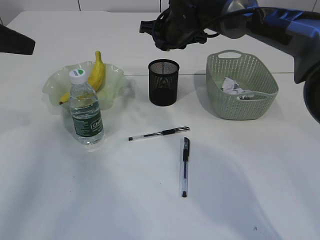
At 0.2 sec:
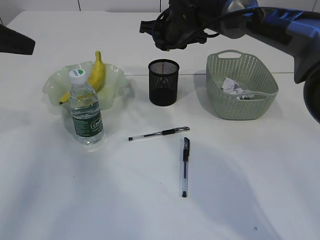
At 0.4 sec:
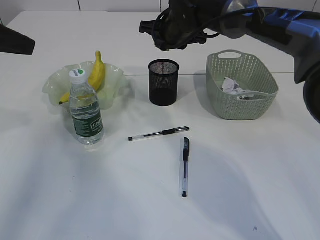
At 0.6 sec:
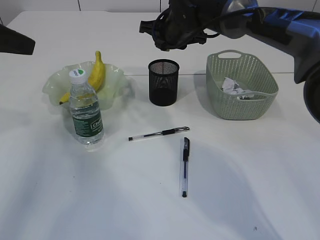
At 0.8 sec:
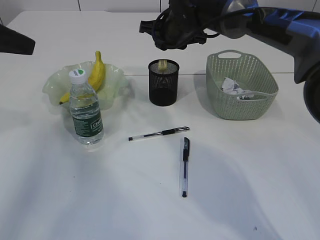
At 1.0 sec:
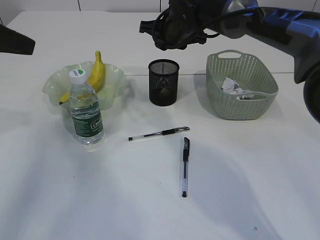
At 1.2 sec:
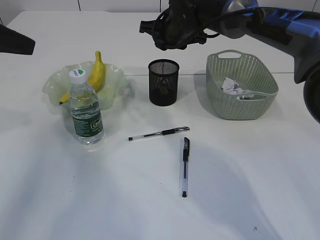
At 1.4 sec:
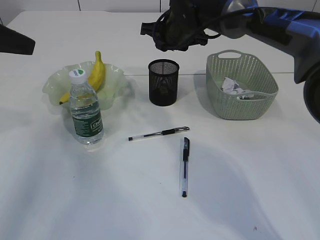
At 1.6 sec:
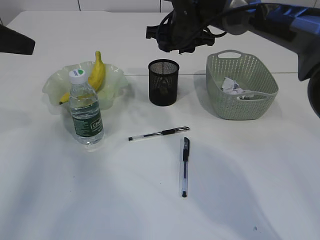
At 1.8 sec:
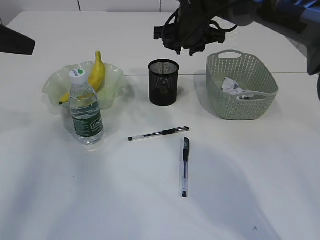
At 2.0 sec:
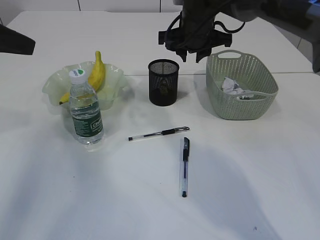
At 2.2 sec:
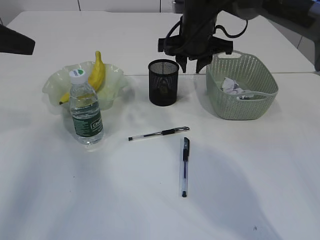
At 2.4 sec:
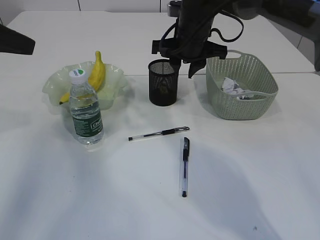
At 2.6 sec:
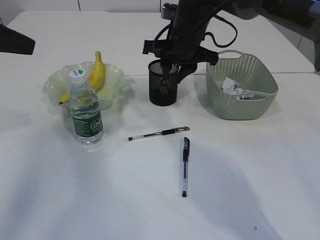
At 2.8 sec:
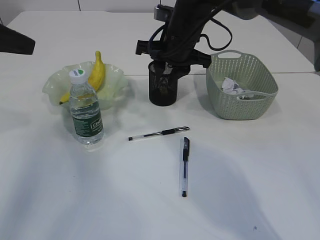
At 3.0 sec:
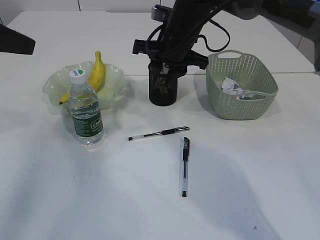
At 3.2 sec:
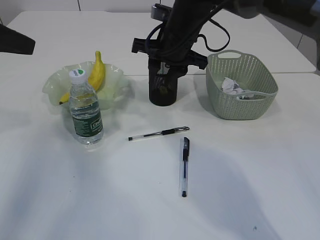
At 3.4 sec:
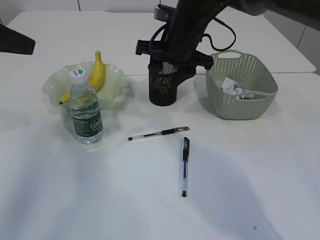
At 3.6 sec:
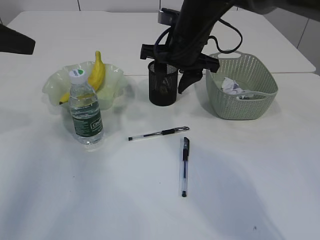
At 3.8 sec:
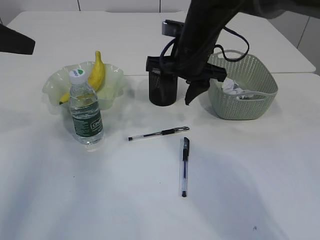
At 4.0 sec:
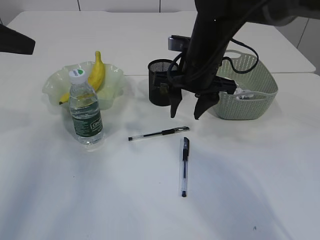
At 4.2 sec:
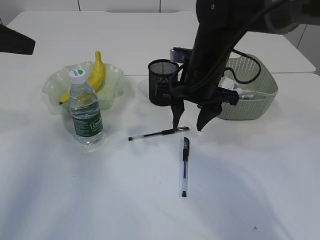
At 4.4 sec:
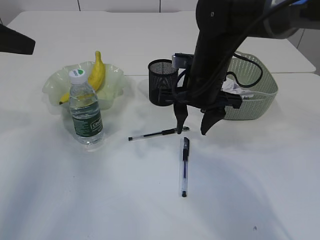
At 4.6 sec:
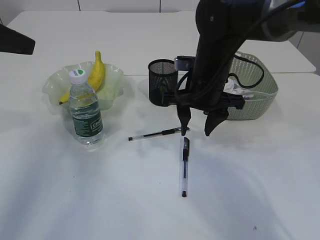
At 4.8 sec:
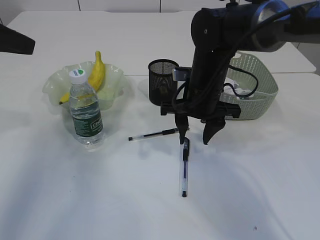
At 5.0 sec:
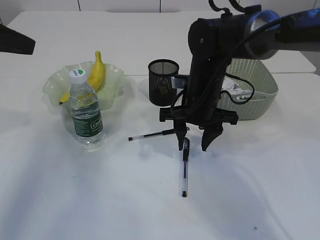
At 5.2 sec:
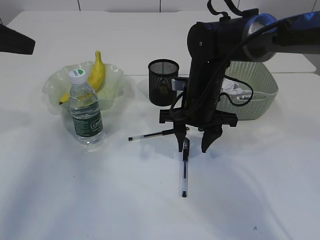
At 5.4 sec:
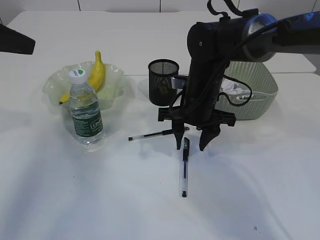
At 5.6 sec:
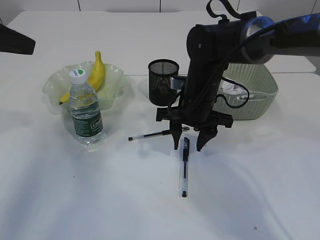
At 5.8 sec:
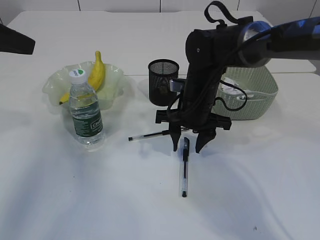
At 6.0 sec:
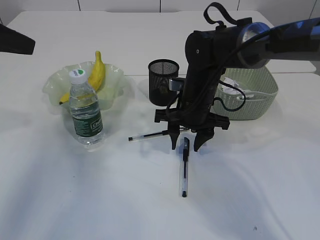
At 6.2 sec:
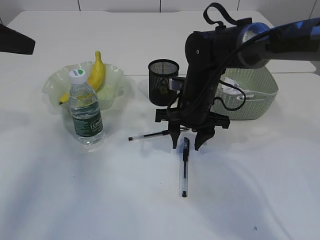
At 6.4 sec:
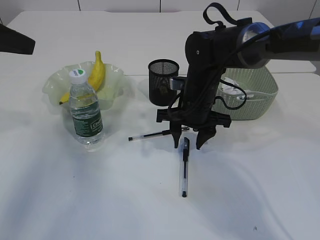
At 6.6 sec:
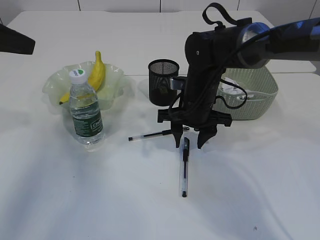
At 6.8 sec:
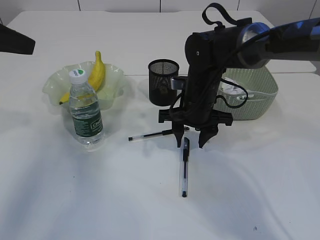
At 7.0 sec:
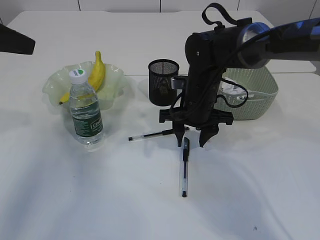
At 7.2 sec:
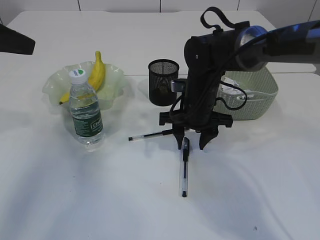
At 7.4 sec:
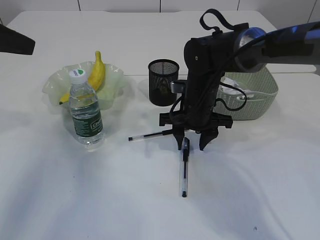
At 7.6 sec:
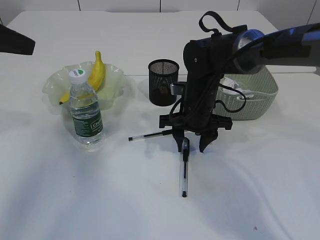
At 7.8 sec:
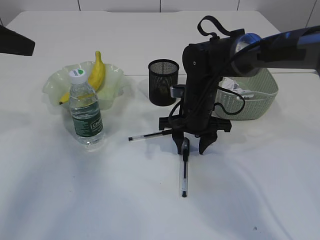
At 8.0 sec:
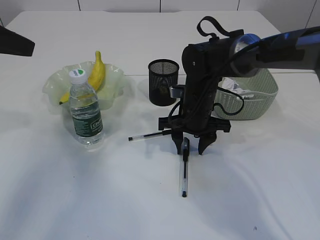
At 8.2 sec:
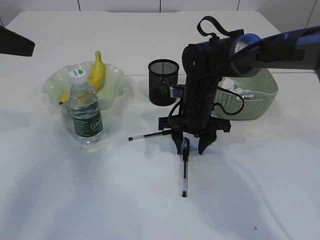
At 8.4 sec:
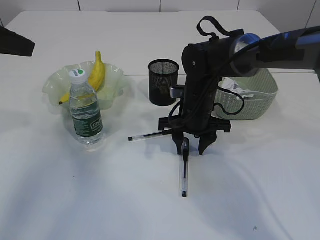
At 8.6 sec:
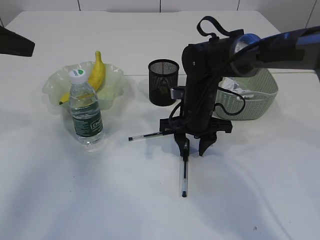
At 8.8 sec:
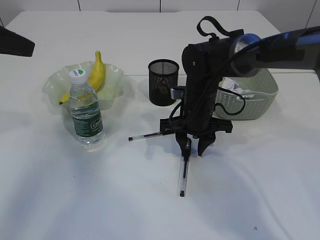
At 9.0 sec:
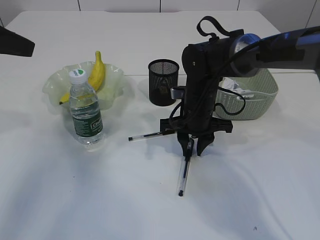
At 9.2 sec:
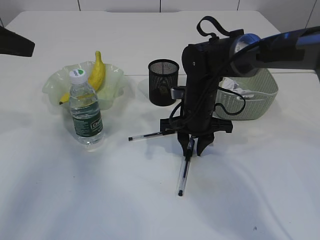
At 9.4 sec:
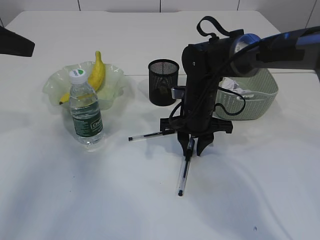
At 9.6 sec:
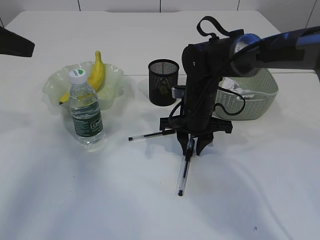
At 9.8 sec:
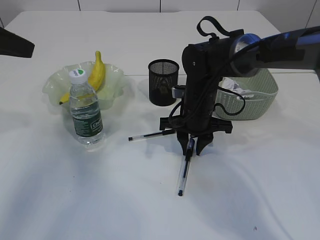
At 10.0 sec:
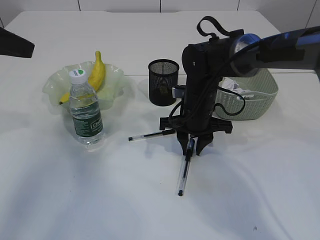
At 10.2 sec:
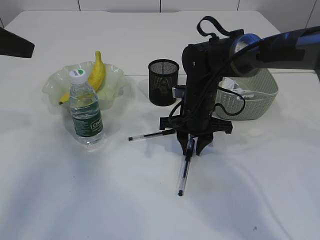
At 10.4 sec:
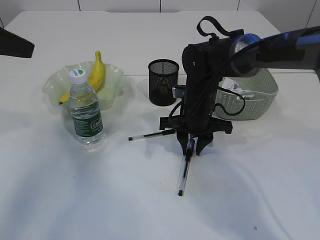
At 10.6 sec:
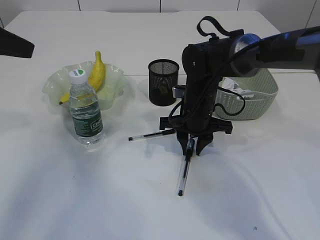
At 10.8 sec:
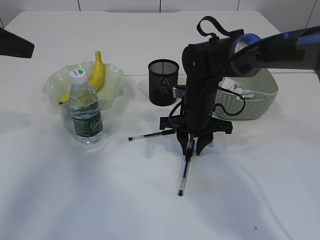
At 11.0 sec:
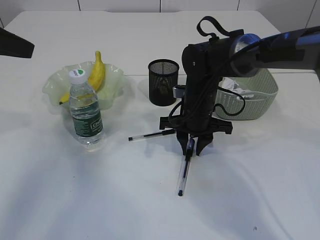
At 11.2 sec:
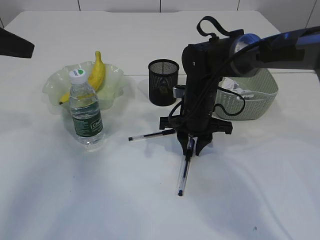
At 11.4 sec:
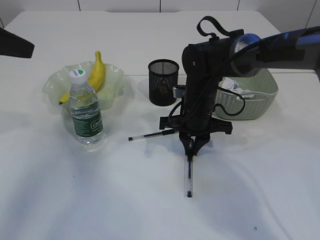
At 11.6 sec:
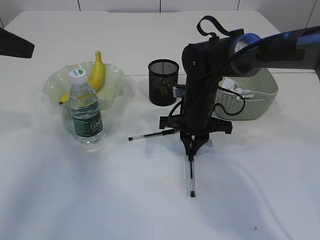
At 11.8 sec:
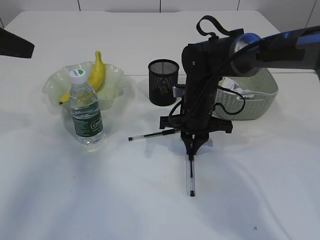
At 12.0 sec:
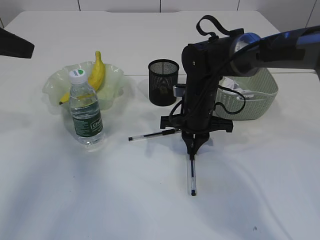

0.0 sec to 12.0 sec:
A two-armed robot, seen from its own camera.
0.0 sec to 1.6 sec: The grippers make only small movements.
1.6 sec to 3.0 sec: The right gripper goes approximately 5 cm backward.
3.0 sec to 4.4 sec: The right gripper heads backward, covering about 5 cm.
4.4 sec to 6.0 sec: The right gripper heads downward, covering approximately 5 cm.
6.0 sec to 7.6 sec: The grippers make only small movements.
7.6 sec to 10.4 sec: Both grippers stay put.
10.4 sec to 12.0 sec: The right gripper closes.

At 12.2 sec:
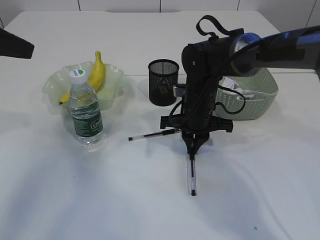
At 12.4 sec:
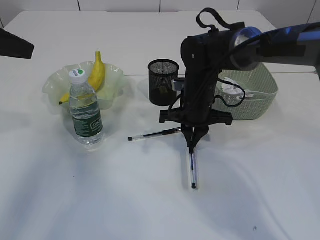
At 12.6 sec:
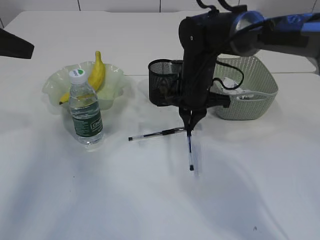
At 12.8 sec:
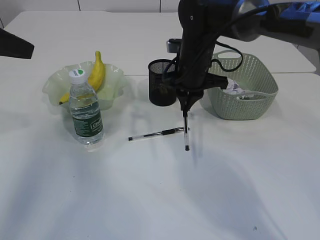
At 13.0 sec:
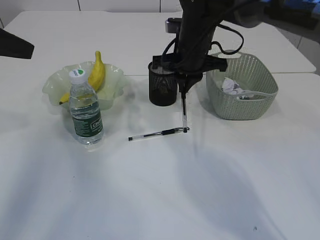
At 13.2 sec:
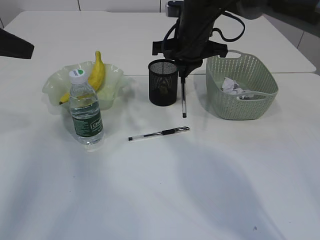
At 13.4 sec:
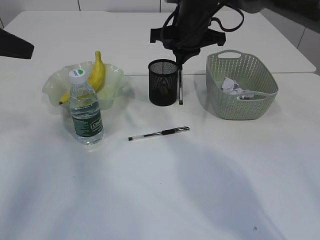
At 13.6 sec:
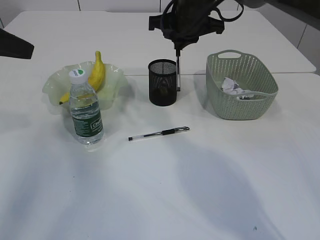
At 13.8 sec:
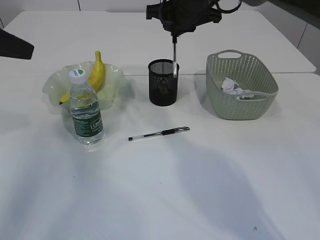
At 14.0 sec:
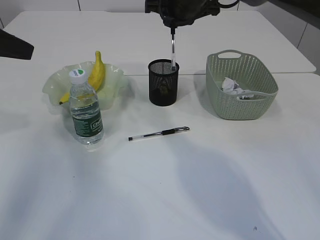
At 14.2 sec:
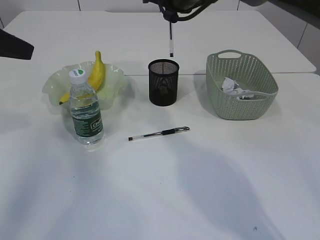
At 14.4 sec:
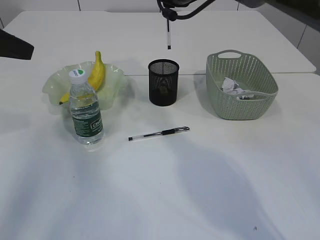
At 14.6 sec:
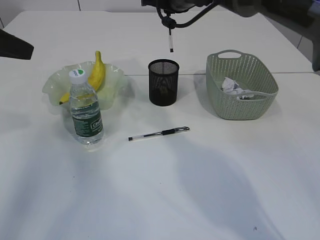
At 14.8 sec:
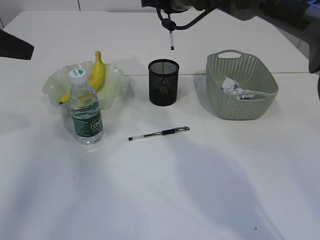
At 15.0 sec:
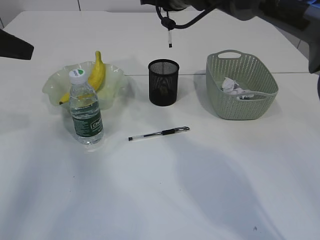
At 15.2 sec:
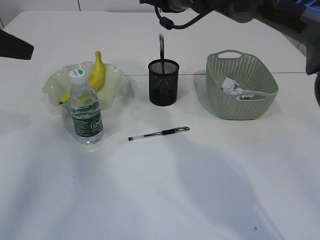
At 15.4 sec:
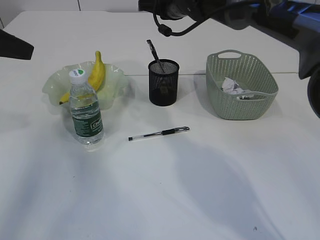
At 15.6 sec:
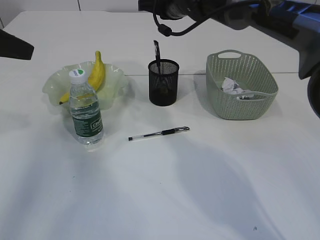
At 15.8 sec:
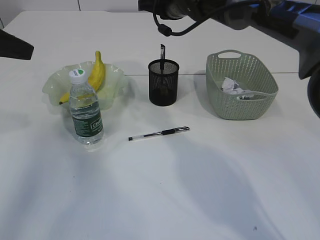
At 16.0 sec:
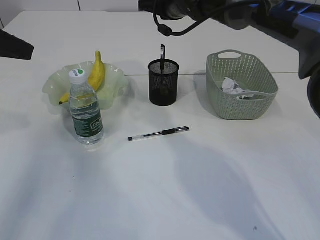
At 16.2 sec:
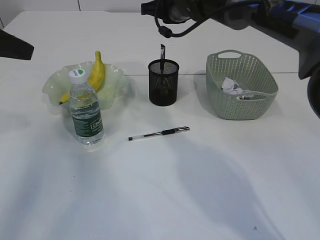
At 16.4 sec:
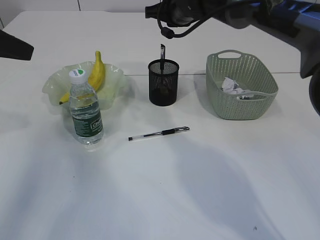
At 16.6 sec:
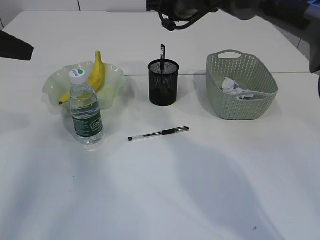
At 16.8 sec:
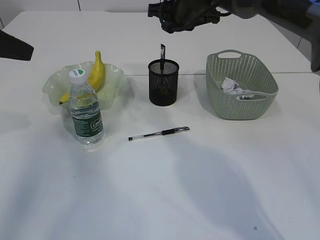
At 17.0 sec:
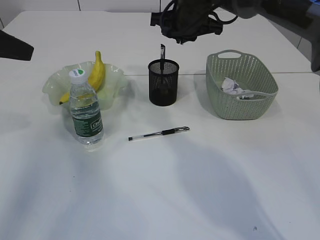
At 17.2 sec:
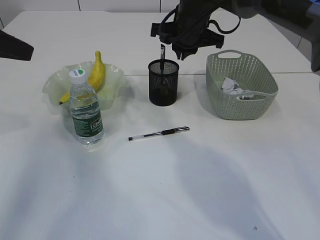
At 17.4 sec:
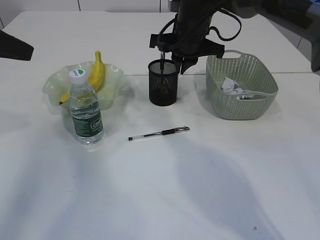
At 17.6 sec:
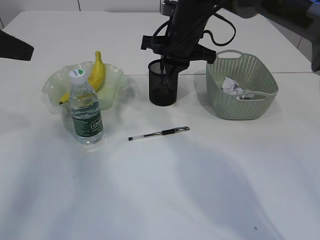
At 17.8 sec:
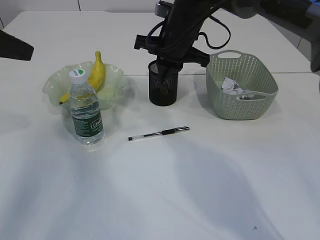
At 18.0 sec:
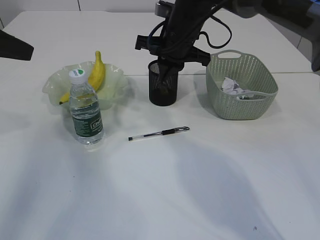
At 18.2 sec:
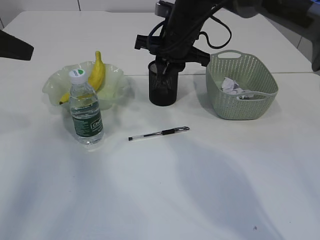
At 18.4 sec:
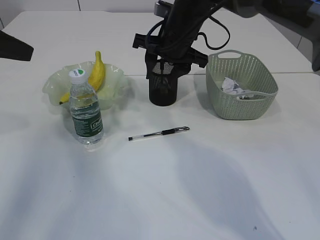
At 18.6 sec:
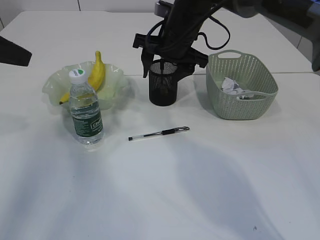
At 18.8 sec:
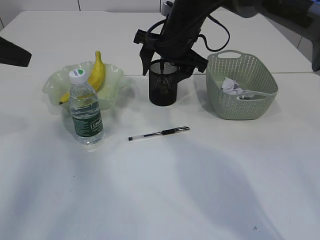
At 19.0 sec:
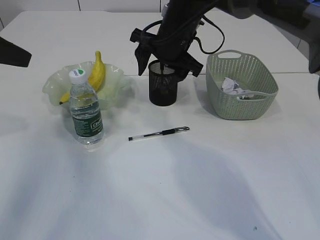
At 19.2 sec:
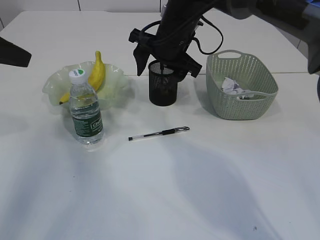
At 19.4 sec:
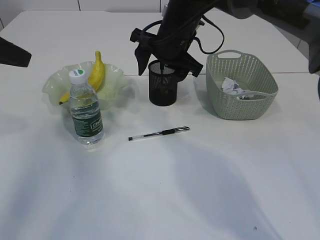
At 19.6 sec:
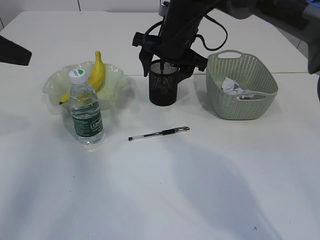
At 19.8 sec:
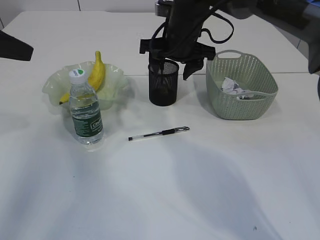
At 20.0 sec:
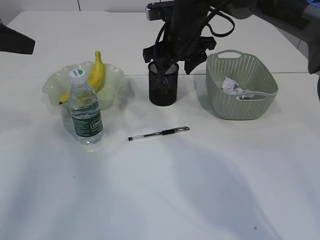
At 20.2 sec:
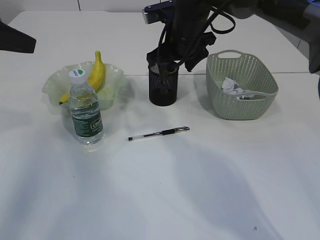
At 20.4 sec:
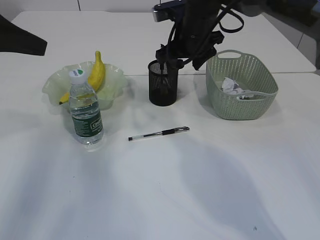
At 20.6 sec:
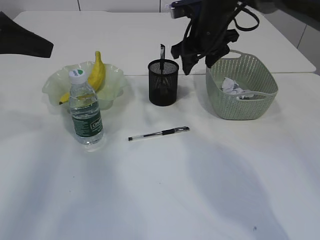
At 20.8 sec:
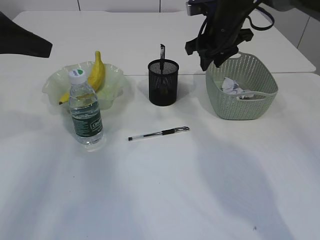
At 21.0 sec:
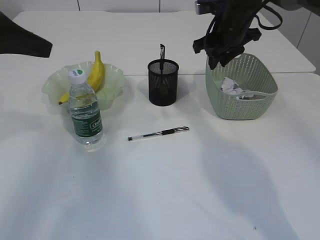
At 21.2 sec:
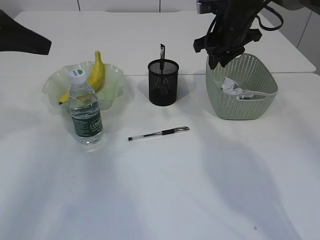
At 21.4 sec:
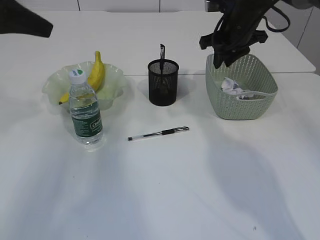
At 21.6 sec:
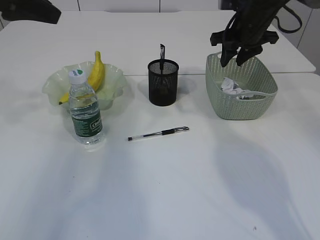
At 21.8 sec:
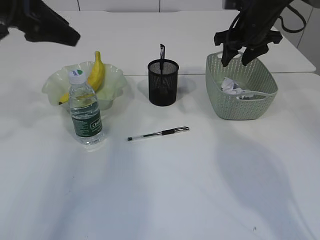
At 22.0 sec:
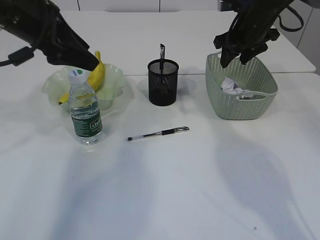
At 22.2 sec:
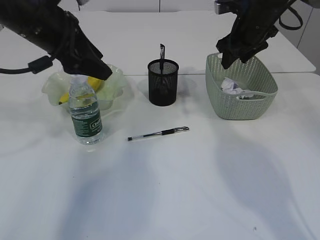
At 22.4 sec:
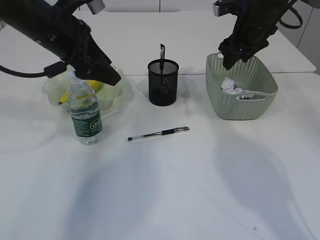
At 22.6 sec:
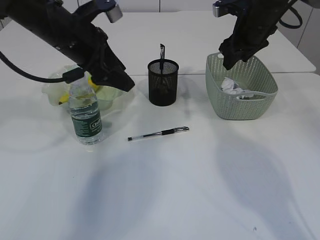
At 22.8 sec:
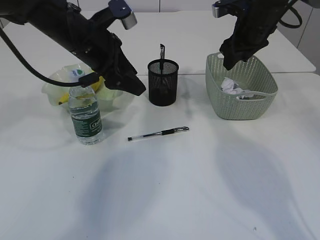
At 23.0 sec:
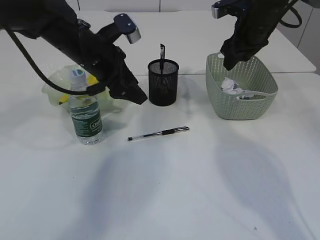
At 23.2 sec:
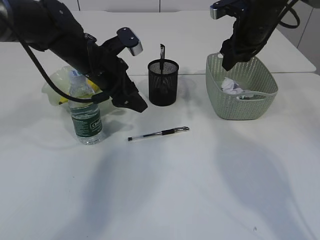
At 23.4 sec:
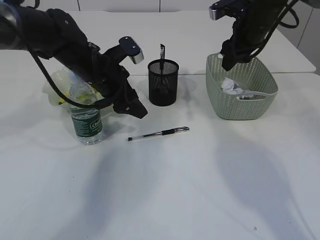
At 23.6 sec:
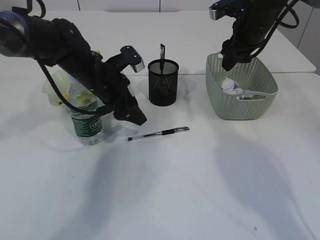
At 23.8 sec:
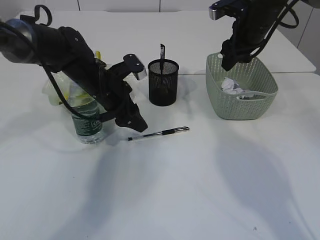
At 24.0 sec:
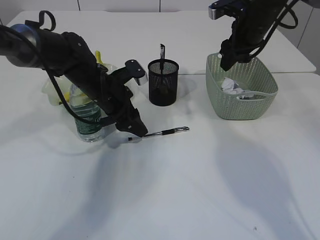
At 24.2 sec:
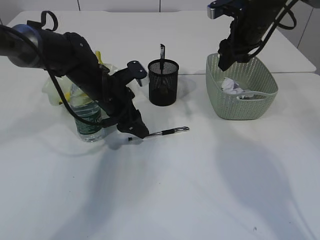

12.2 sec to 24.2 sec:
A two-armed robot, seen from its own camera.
Step, 12.8 sec to 15.8 sec: Place the pen into the pen holder.
12.2 sec to 13.8 sec: The right gripper is displaced upward and forward by roughly 20 cm.
15.2 sec to 16.6 sec: The grippers move only a little.
16.6 sec to 18.2 sec: The right gripper moves backward, about 5 cm.
18.2 sec to 19.8 sec: The right gripper opens.
19.8 sec to 21.2 sec: The right gripper is displaced to the right by roughly 10 cm, and closes its fingers.
21.2 sec to 22.6 sec: The left gripper moves to the right and forward, some 15 cm, and opens. Meanwhile the right gripper opens up.
22.6 sec to 24.2 sec: The left gripper moves downward, approximately 15 cm.
